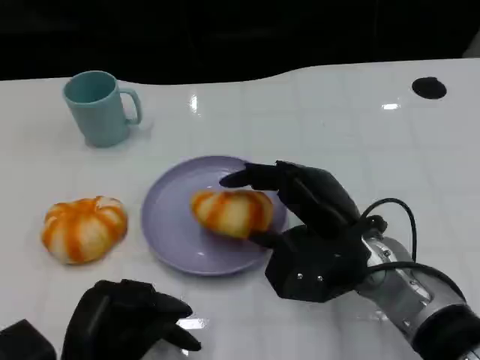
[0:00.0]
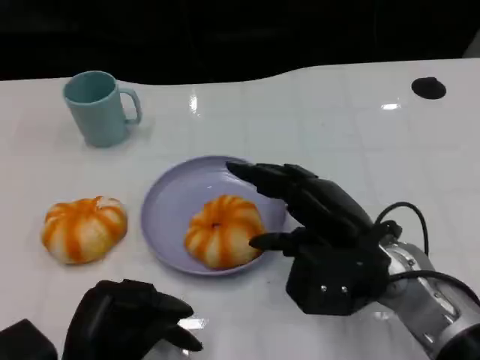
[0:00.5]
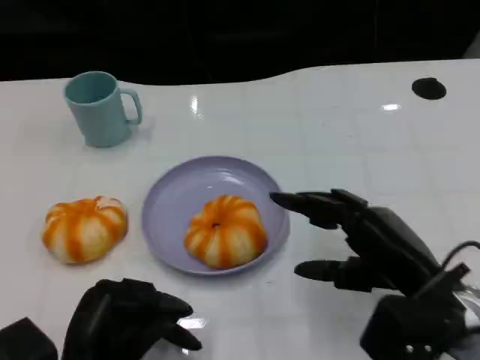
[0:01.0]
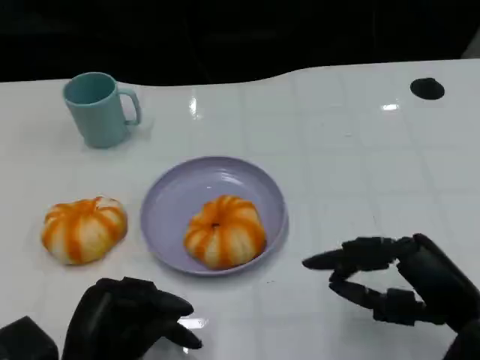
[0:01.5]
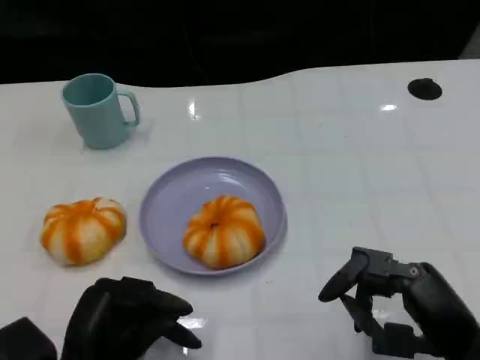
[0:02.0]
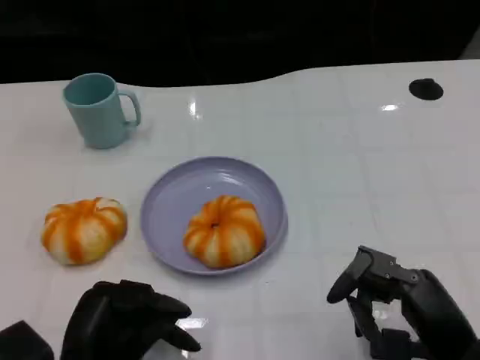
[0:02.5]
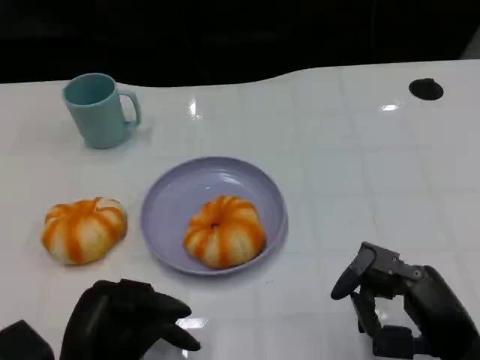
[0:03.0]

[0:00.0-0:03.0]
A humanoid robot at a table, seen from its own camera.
Task of the whole recording: Grasp the bread from the table and place it into the plate.
0:00.0 to 0:01.5: The right hand moves to the right and backward, roughly 15 cm.
0:01.5 to 0:03.0: There are only small adjustments of the hands.

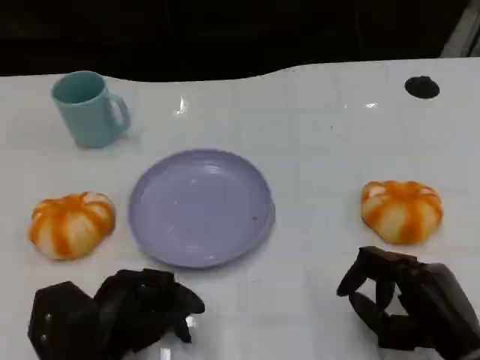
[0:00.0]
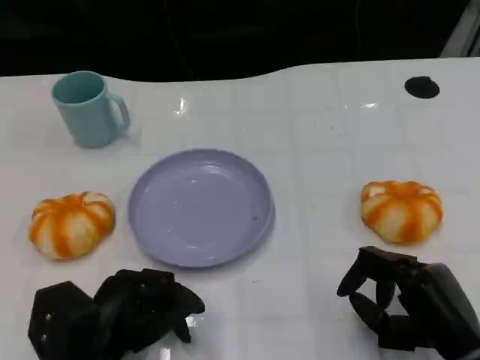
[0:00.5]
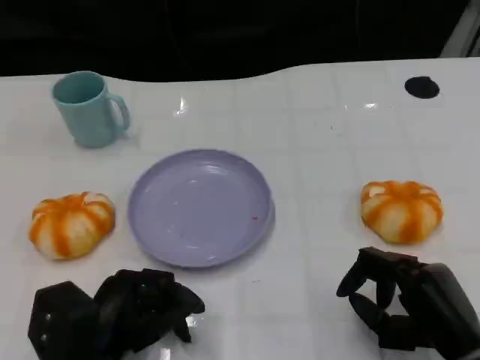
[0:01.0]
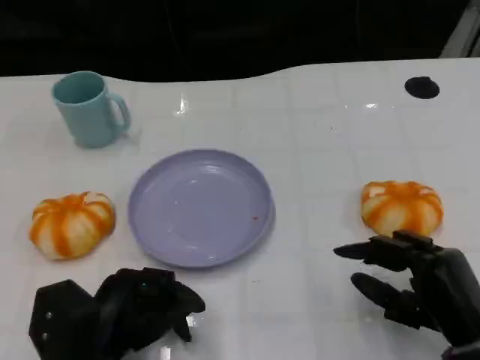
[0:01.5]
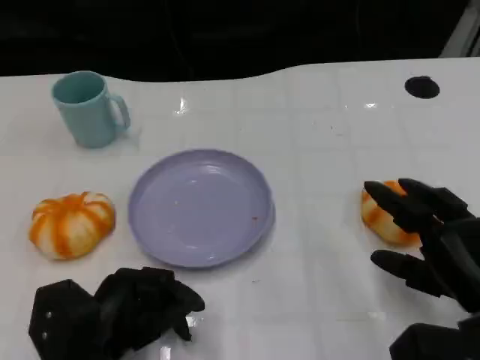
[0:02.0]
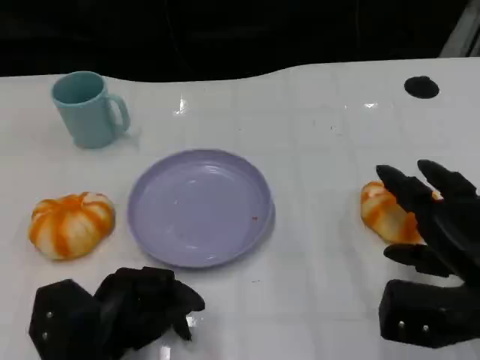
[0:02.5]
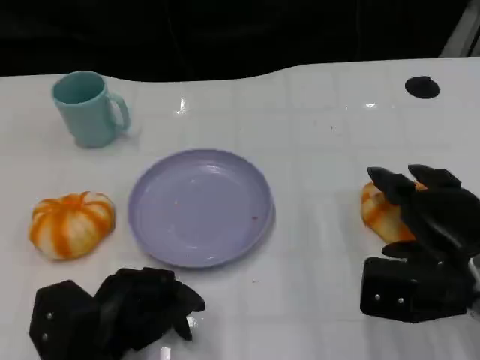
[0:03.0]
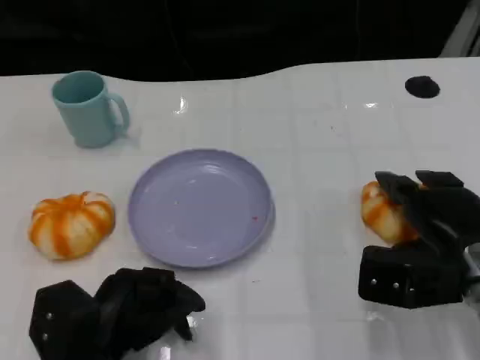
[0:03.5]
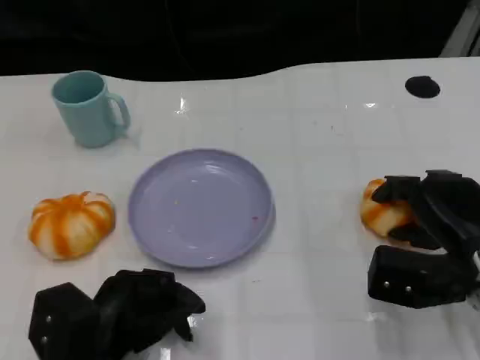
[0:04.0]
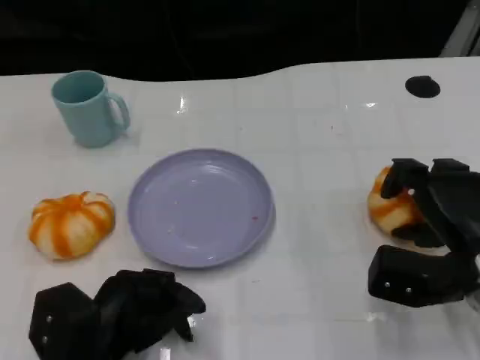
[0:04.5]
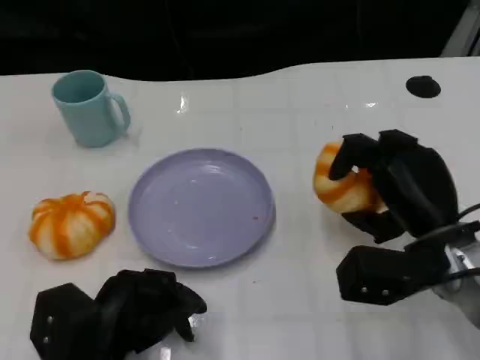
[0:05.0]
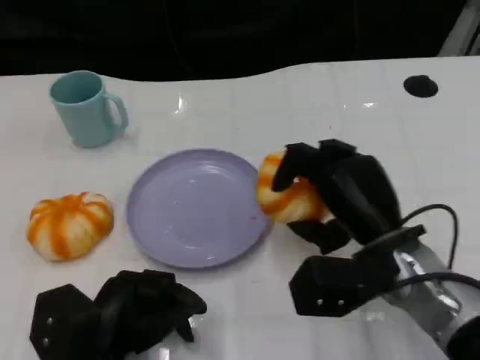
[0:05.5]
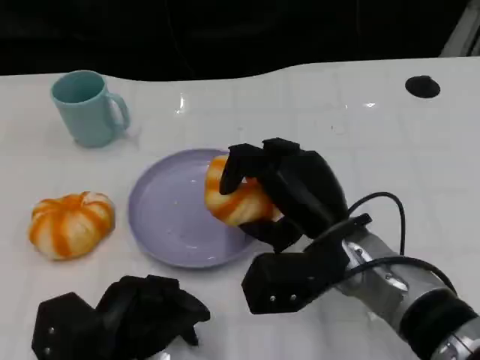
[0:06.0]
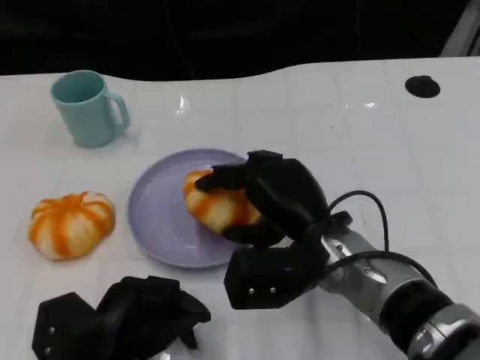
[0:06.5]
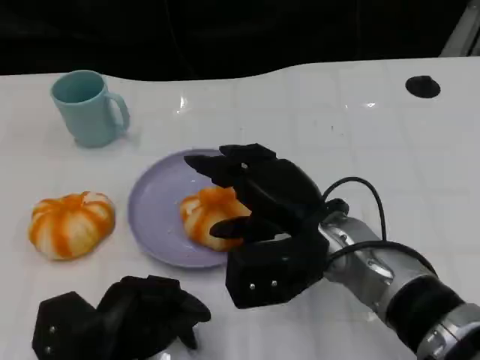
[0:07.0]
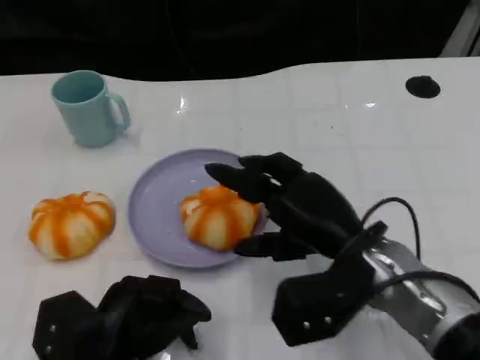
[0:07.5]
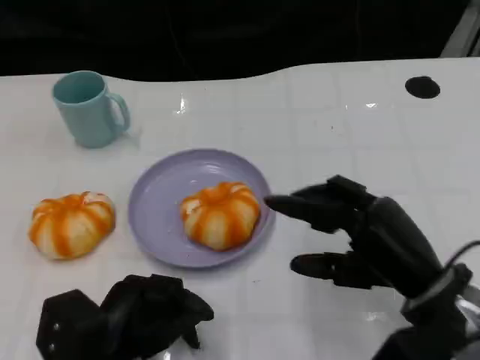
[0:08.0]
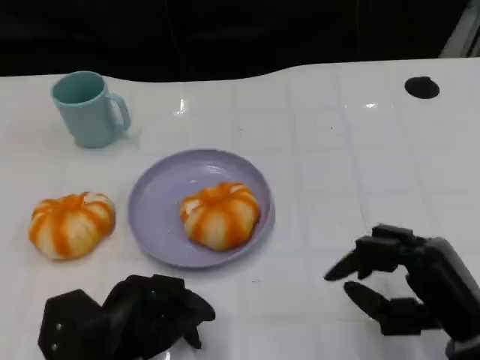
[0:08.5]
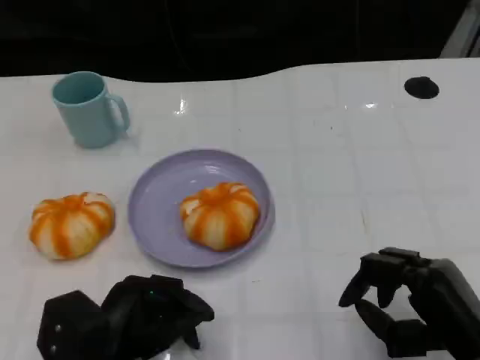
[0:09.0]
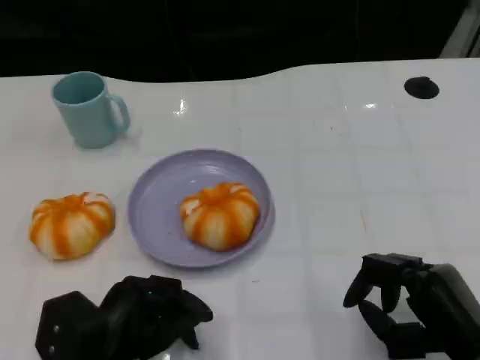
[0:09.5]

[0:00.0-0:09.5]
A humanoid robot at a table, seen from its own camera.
Task of the whole recording: Grasp the bread from the table and place it into the plate.
0:02.0 to 0:04.0: The right hand goes about 5 cm forward.
0:04.0 to 0:05.5: The right hand heads to the left, covering some 10 cm.
0:07.5 to 0:09.5: The right hand travels to the right, backward and downward by about 15 cm.

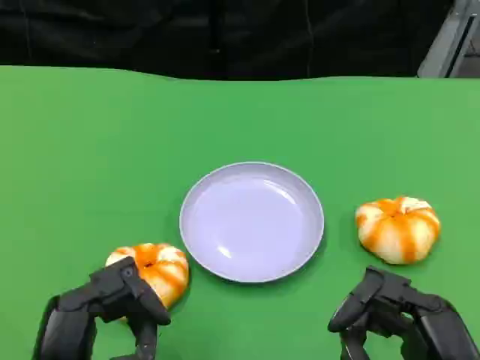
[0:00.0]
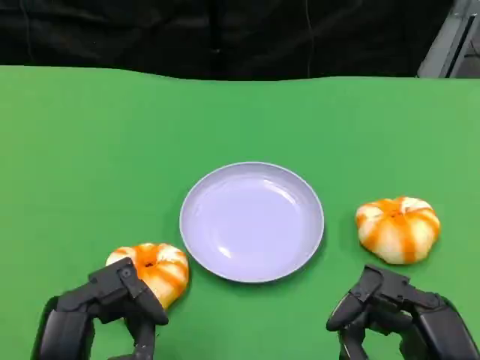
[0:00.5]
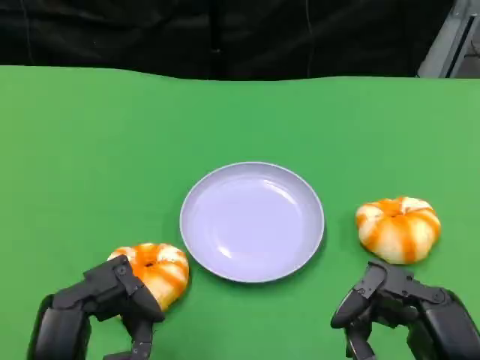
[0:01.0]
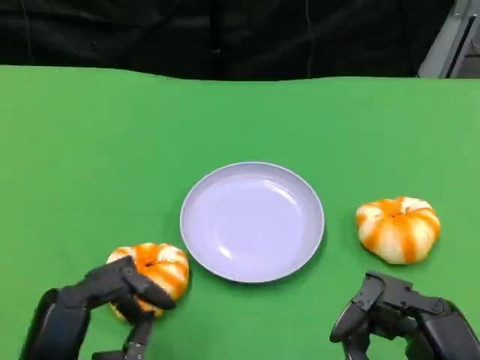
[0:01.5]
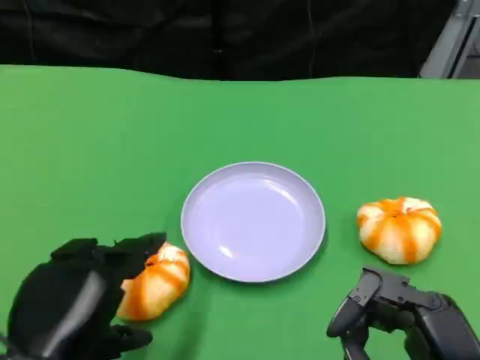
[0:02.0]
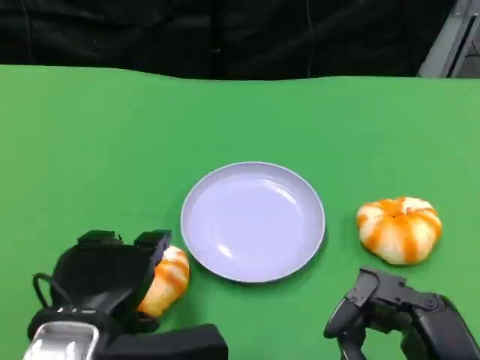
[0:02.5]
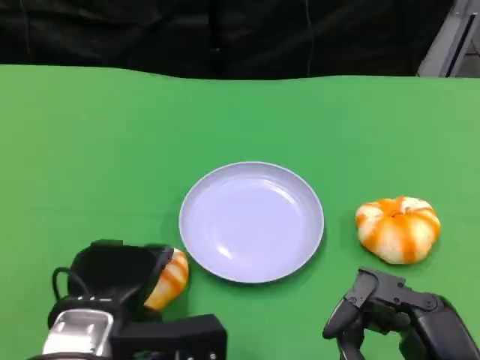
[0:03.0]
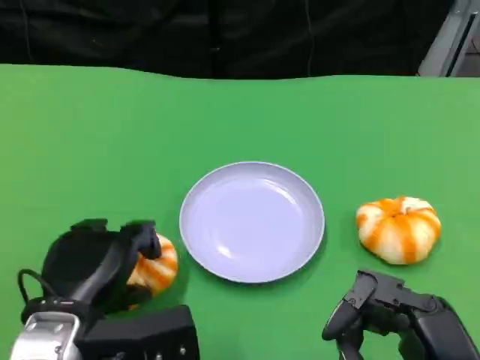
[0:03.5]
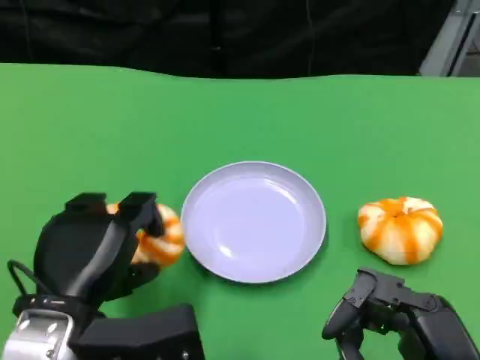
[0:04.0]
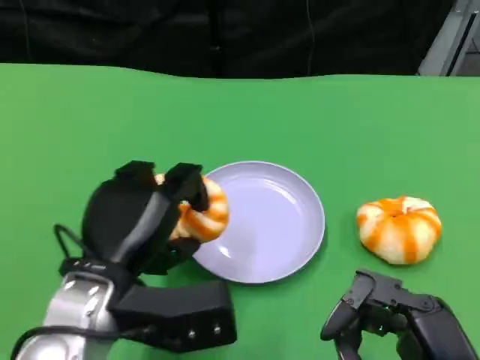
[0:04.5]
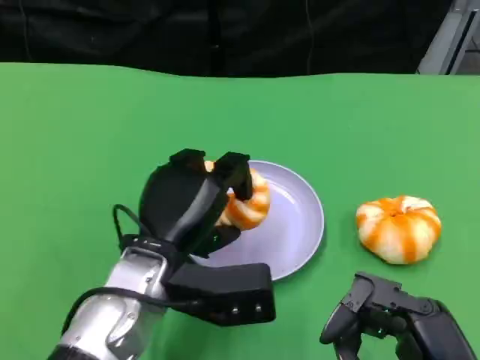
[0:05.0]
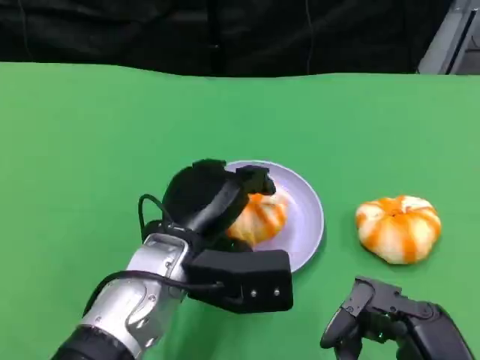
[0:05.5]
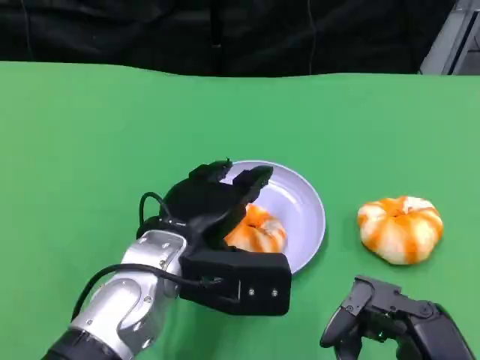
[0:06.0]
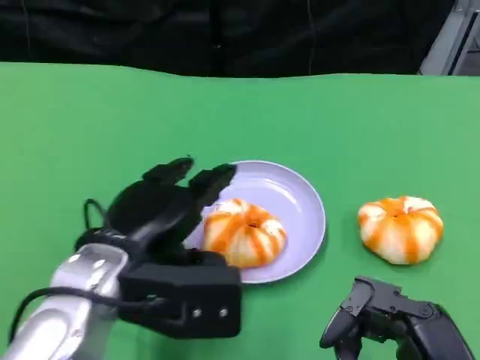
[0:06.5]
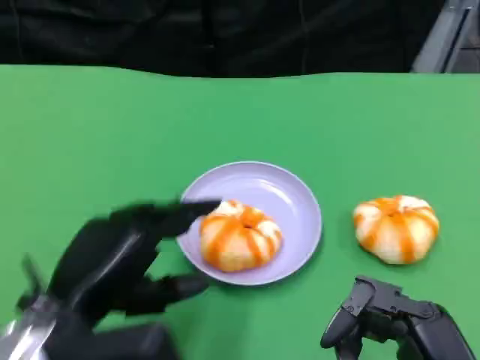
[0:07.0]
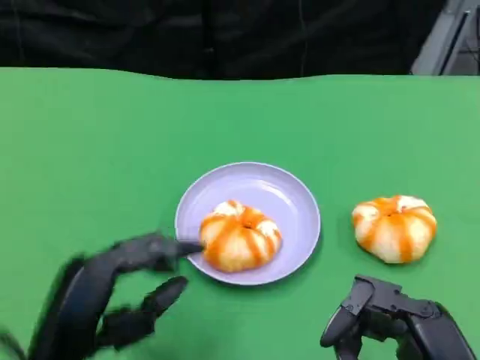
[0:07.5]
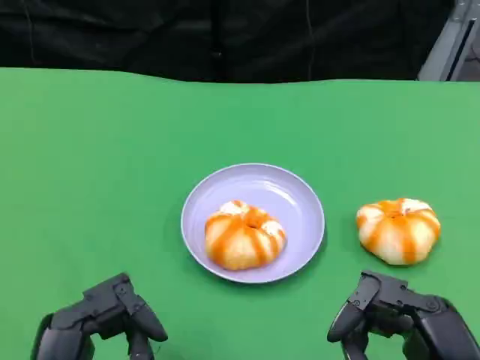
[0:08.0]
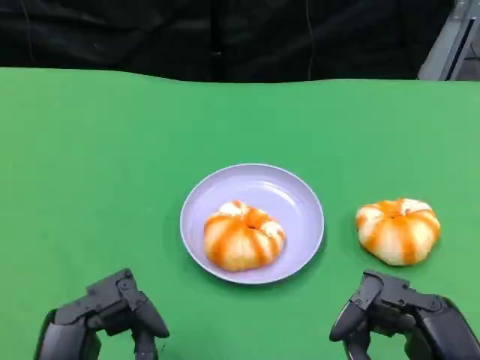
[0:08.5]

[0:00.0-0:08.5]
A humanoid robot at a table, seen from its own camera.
Task of the whole recording: Grasp the bread from the table and place it into the plate.
0:02.0 to 0:04.0: The left hand moves approximately 5 cm.
0:04.0 to 0:06.5: The left hand moves approximately 10 cm to the right and comes back.
0:06.5 to 0:08.5: The left hand travels backward and downward by approximately 15 cm.
